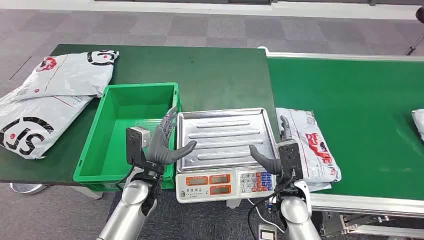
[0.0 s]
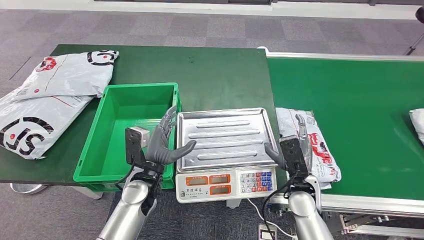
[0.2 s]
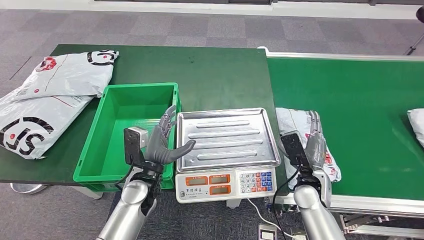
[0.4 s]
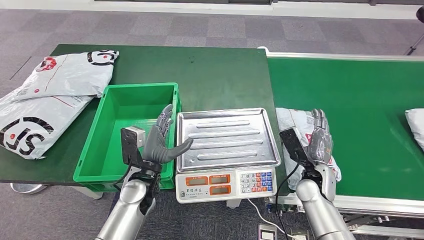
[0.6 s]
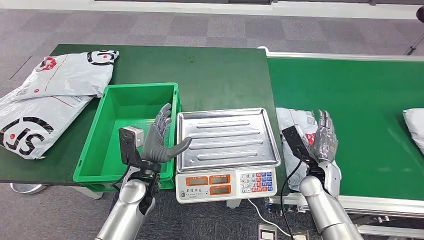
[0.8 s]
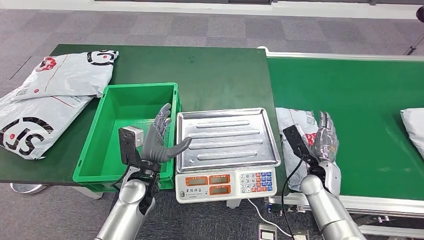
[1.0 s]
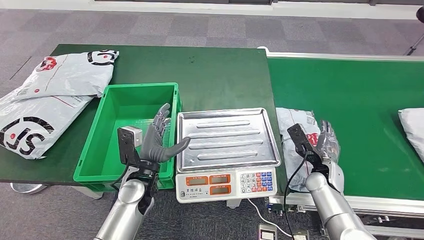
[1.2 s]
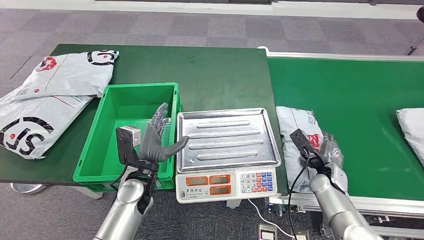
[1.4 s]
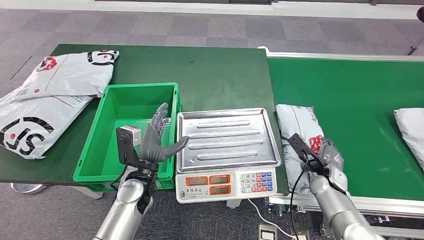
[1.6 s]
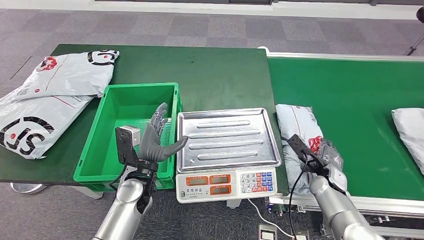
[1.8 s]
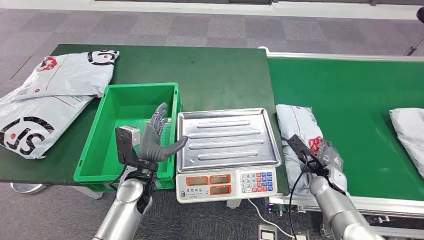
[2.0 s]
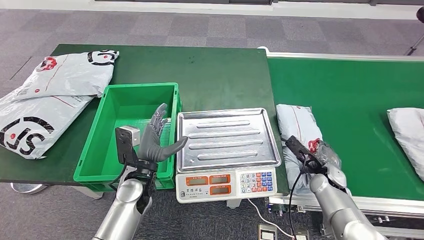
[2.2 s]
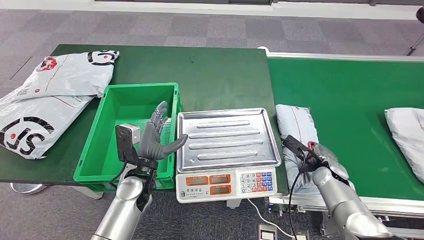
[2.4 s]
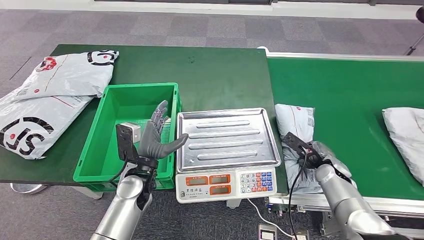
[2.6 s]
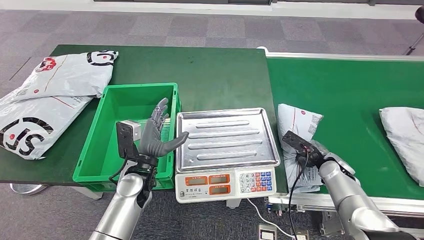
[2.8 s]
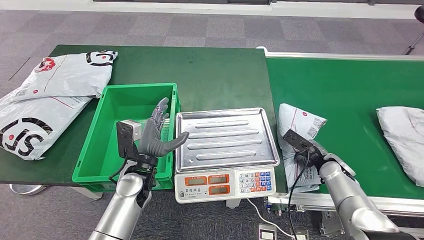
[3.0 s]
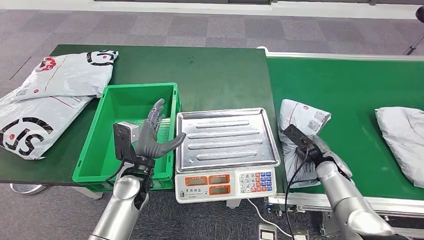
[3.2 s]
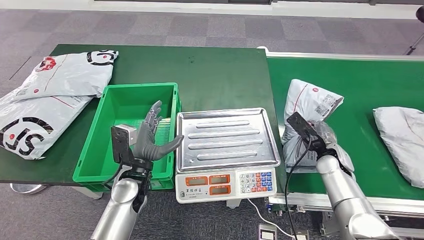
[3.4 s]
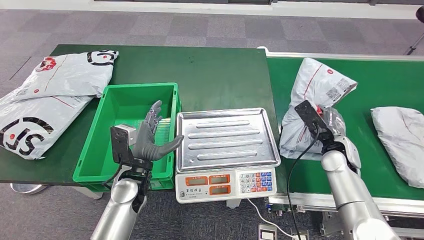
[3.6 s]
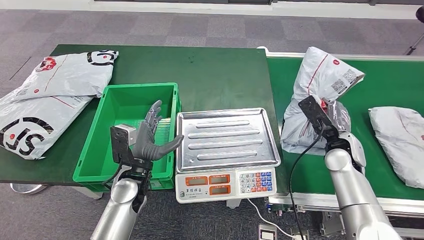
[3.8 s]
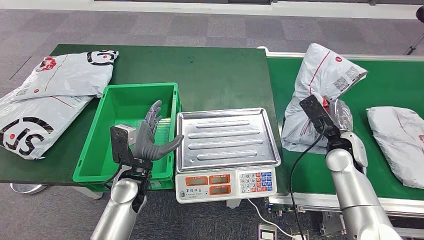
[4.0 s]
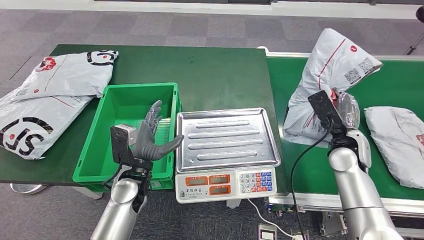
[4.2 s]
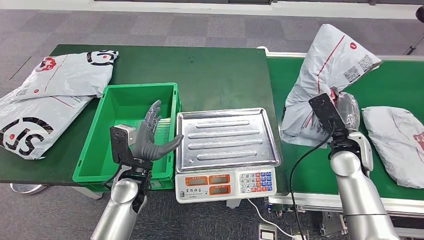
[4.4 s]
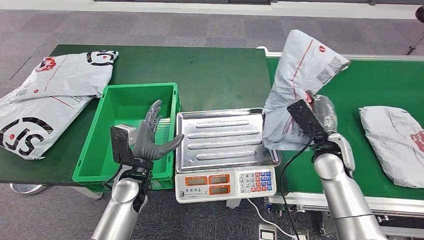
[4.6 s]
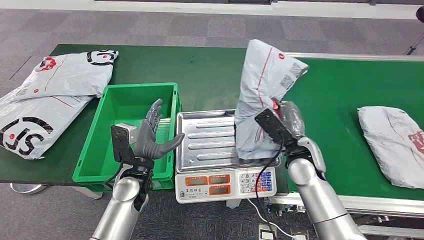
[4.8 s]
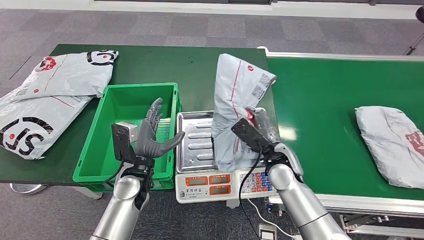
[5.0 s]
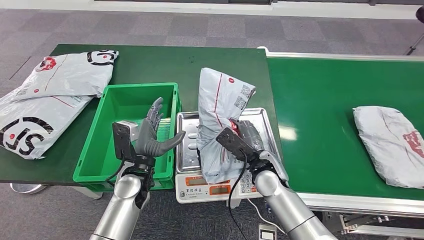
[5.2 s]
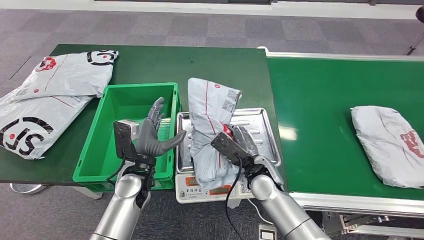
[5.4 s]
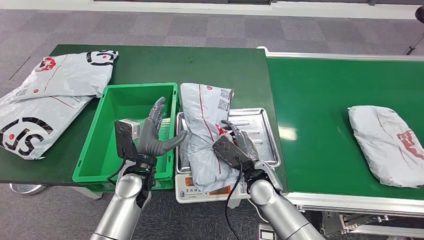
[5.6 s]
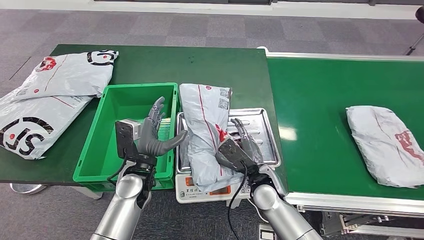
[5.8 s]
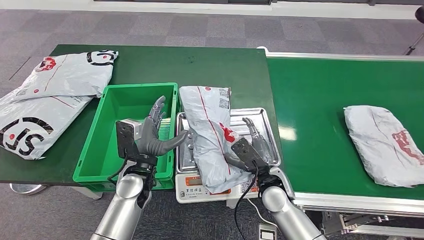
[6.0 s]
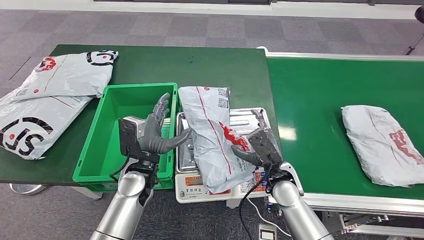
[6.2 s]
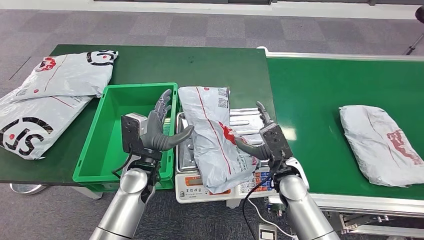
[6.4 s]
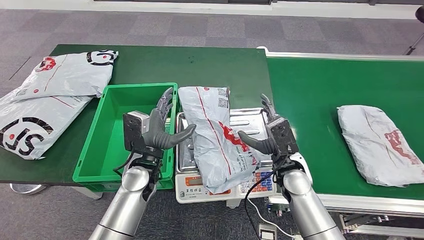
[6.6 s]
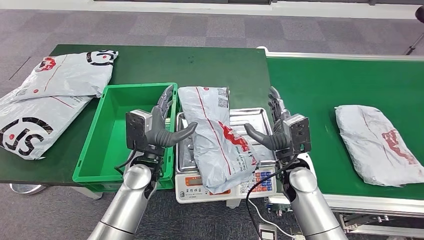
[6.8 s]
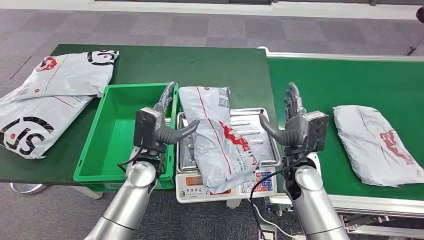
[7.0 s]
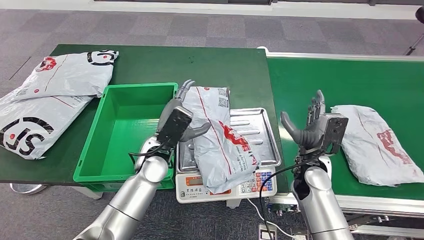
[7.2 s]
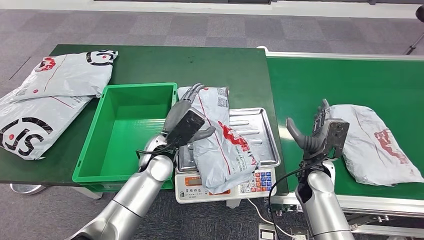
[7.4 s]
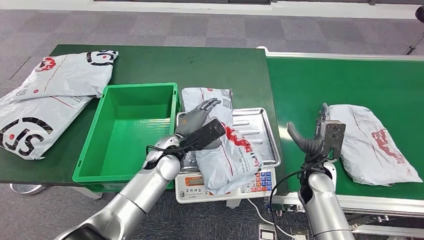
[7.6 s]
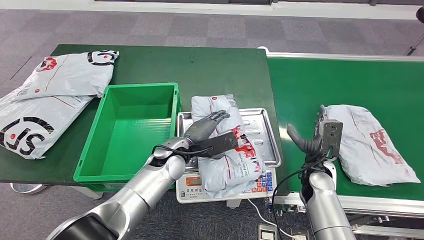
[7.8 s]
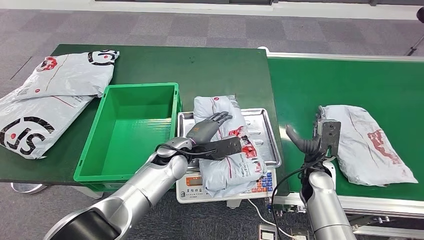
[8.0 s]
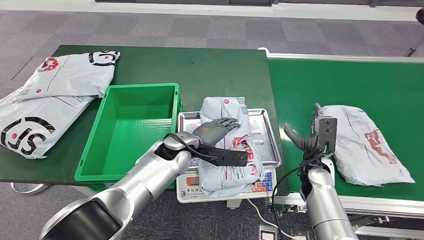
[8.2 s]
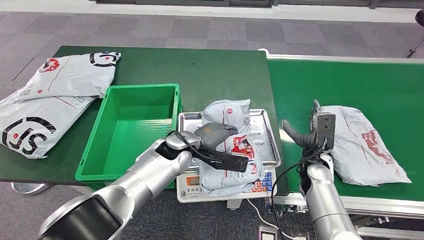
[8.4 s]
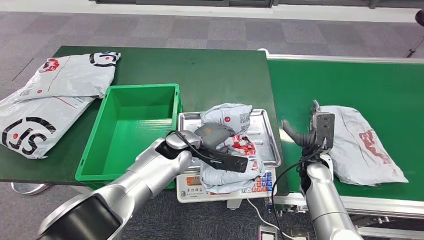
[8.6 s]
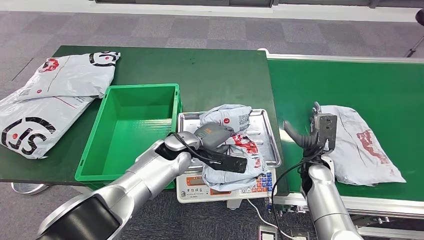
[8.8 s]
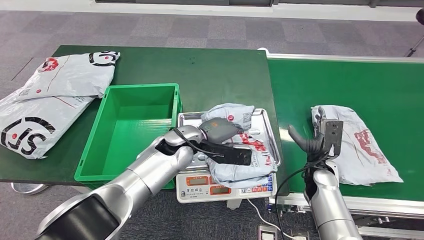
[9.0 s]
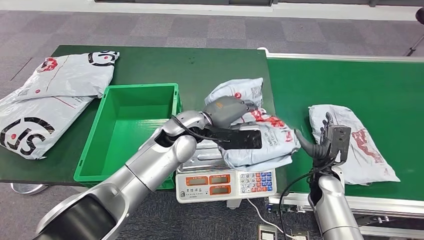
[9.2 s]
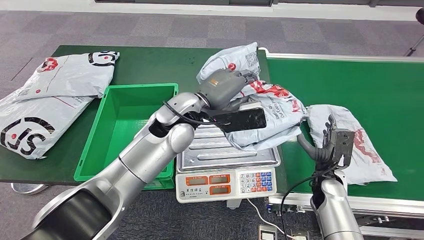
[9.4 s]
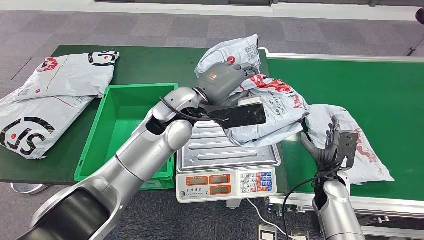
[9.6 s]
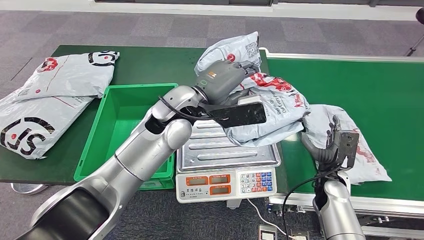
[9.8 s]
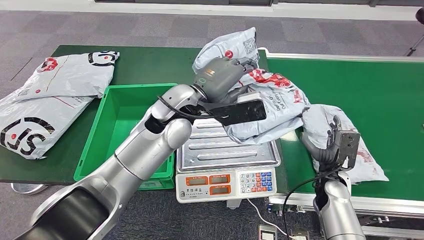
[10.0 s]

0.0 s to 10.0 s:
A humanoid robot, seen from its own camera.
Step, 0.0 to 3.6 s: Take the parcel off the conveyor belt.
Step, 4.0 to 6.8 s: Place the parcel onto the inbound machine.
2.8 to 4.2 s: The right hand moves upward, roughly 10 cm.
5.8 to 7.2 s: The left hand ends up about 5 cm from where it was, while the right hand goes roughly 10 cm to the right.

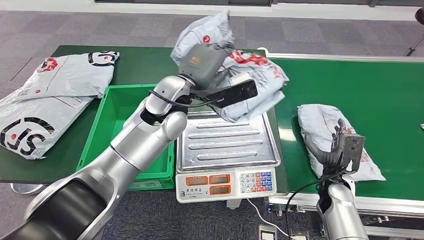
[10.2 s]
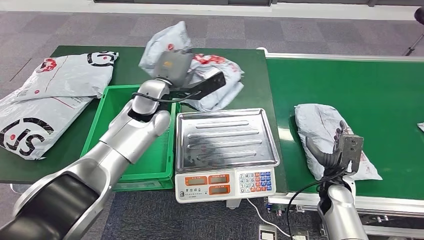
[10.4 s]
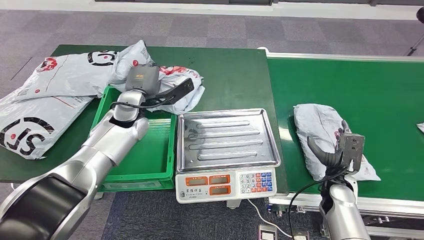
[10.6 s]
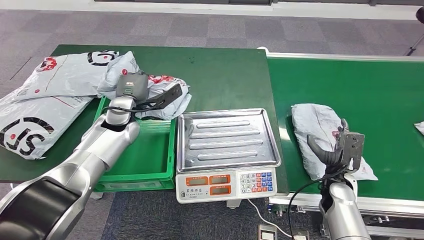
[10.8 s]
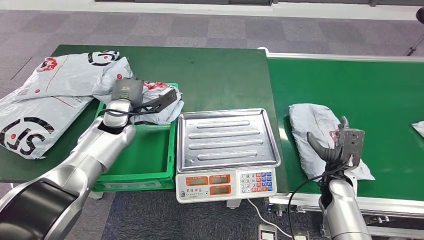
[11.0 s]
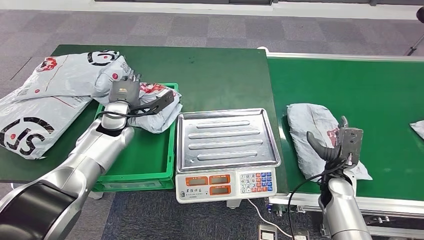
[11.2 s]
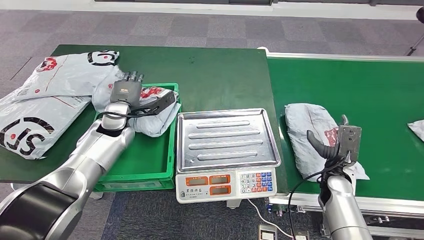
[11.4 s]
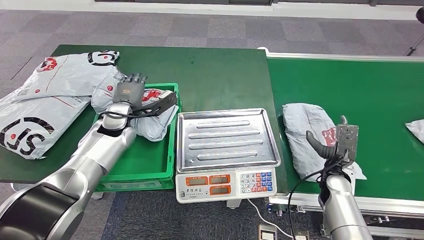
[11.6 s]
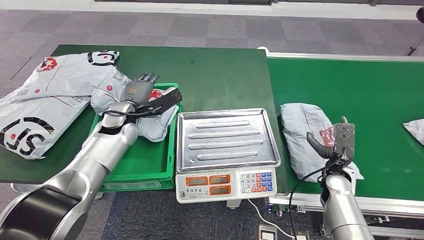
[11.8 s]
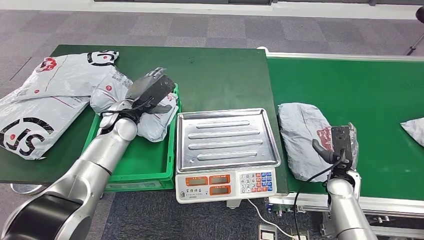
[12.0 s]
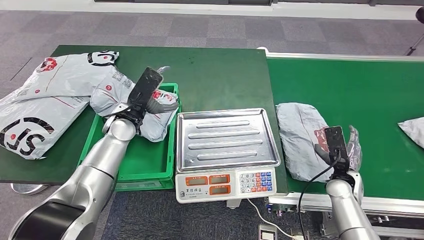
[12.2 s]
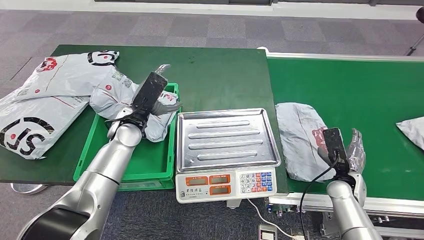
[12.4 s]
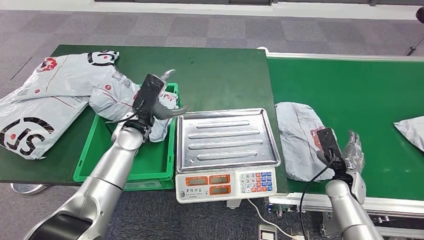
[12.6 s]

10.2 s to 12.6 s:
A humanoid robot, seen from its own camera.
Step, 10.4 to 12.6 s: Put the parcel inside the courier box.
11.4 to 12.6 s: The left hand shifts roughly 5 cm to the right.

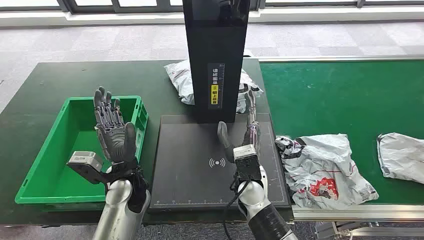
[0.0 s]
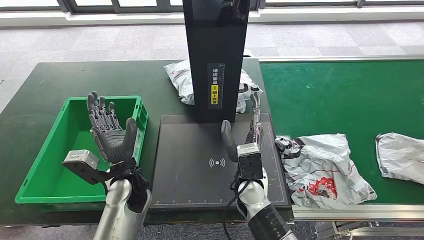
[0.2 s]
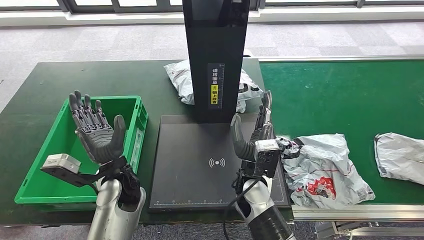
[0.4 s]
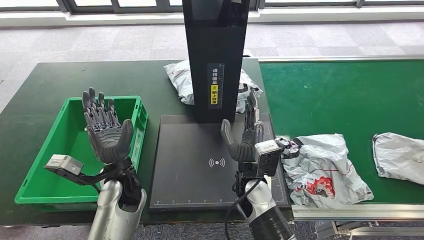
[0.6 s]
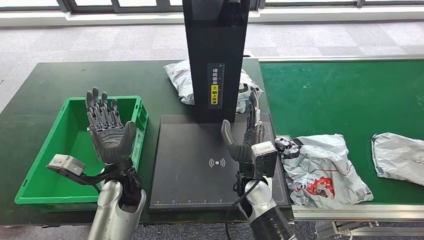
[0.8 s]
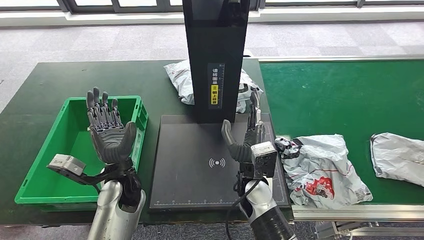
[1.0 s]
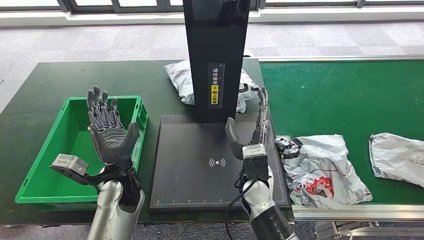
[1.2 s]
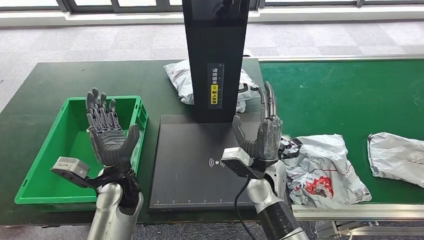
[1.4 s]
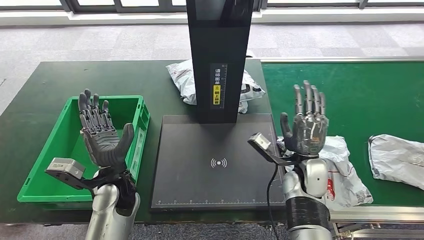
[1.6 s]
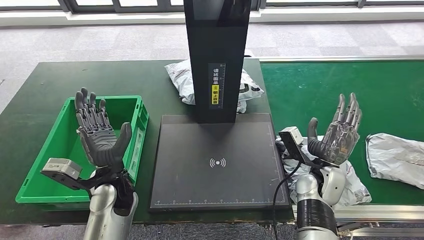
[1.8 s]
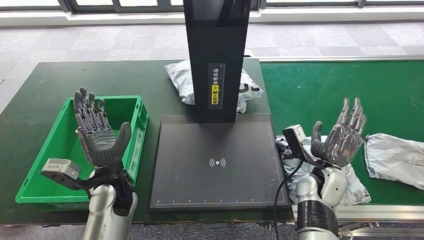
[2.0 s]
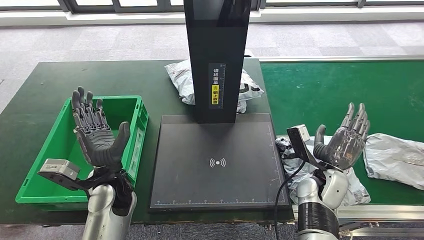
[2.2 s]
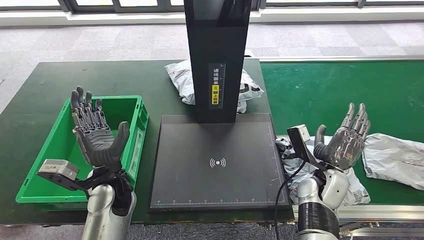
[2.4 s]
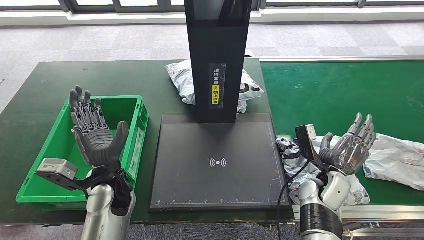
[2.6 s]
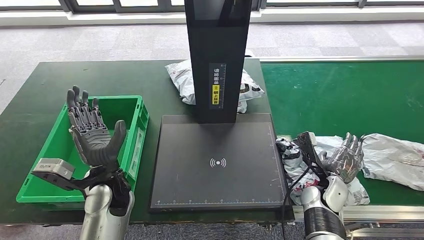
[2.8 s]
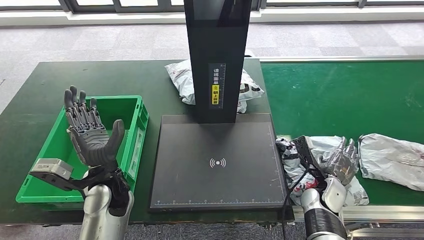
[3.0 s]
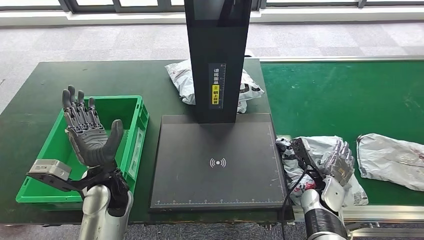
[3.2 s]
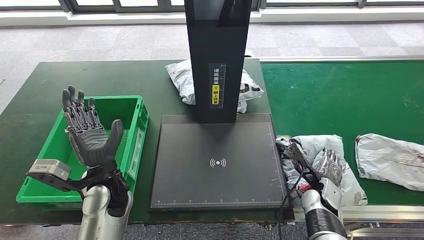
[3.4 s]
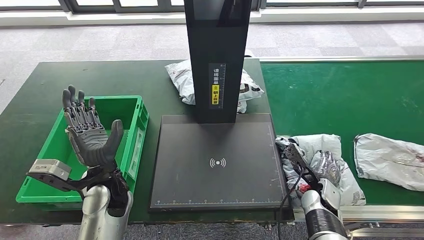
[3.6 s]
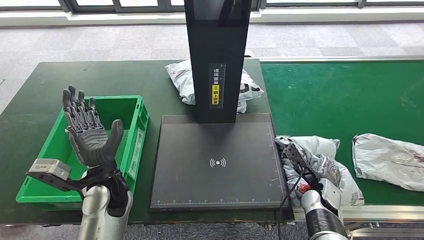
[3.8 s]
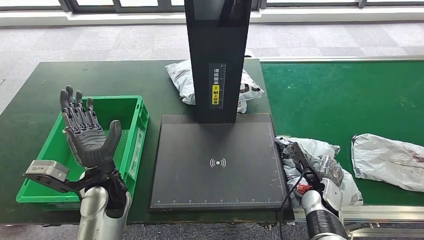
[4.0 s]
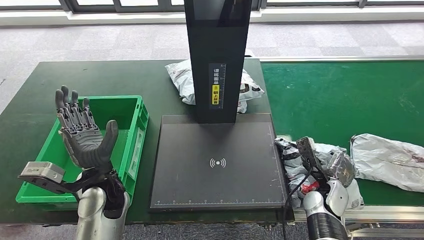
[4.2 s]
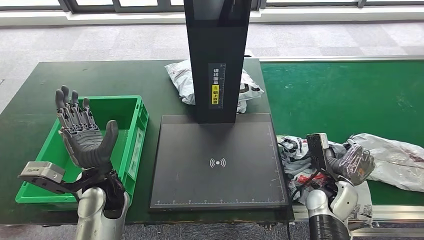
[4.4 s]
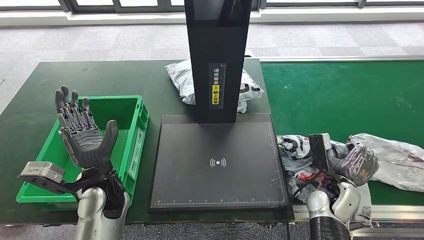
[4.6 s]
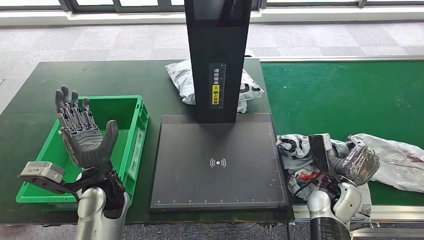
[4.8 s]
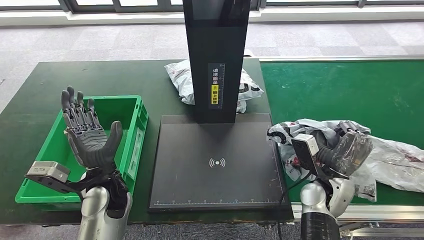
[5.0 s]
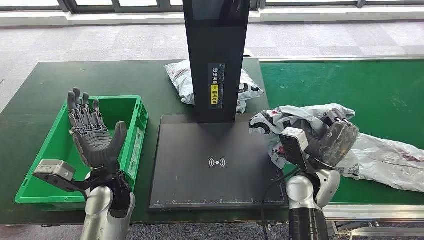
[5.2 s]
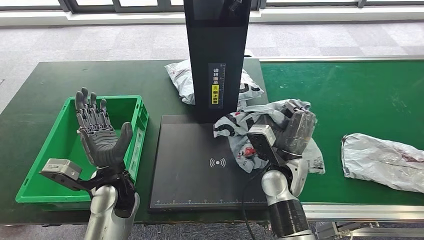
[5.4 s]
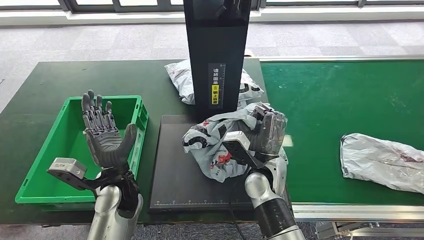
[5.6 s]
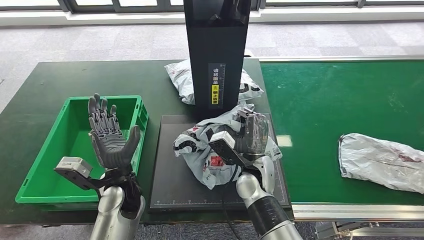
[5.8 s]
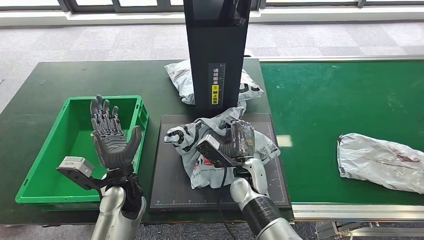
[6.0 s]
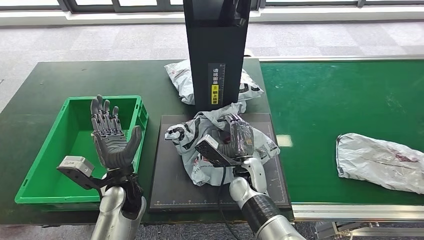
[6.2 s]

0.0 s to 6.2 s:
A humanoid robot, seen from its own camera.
Step, 0.0 to 5.4 s: Take the parcel off the conveyor belt.
1.6 to 3.2 s: The right hand goes approximately 10 cm downward and to the right.
